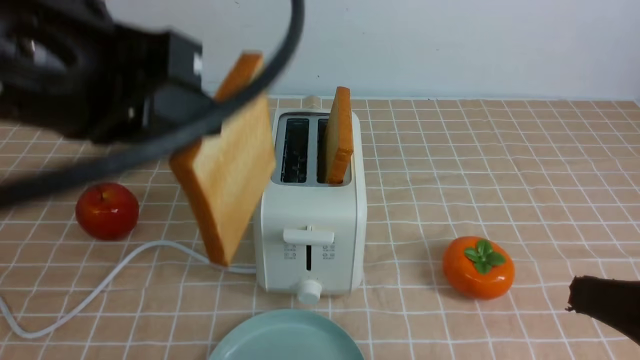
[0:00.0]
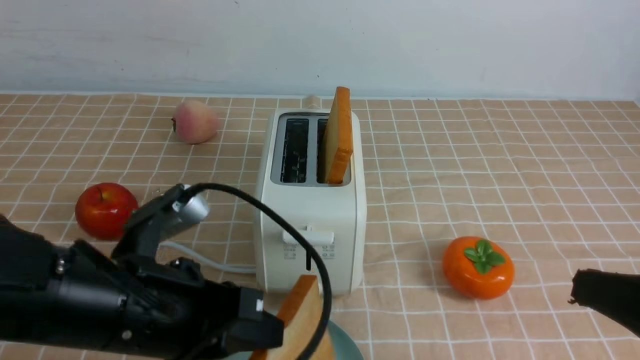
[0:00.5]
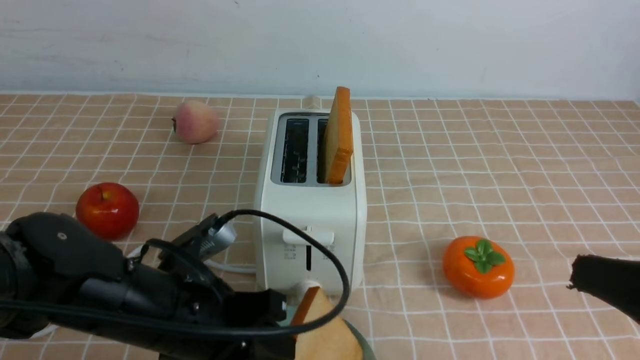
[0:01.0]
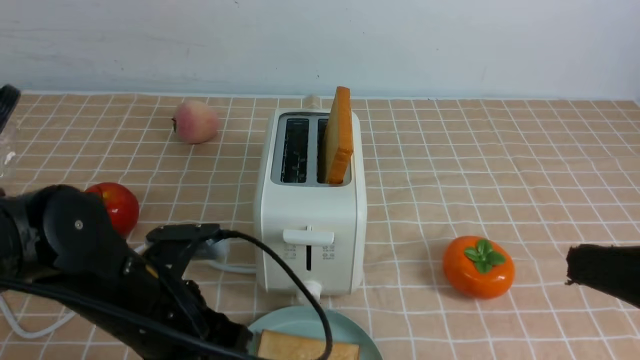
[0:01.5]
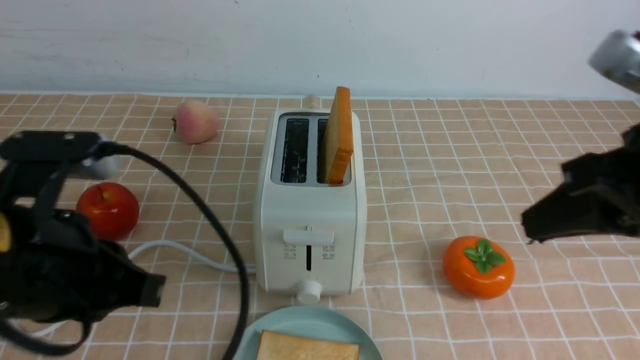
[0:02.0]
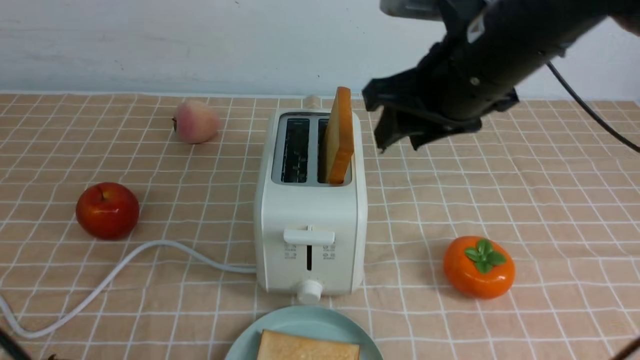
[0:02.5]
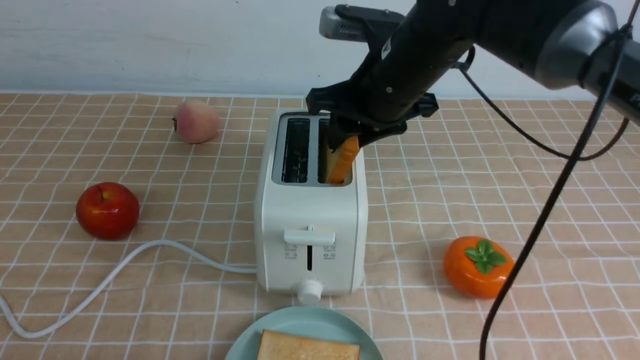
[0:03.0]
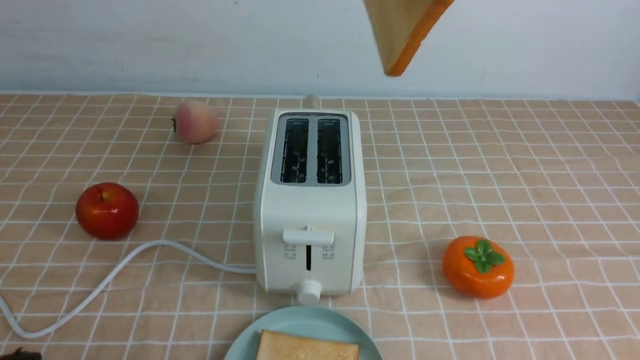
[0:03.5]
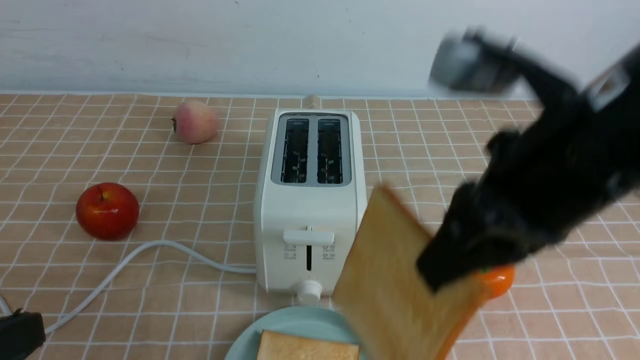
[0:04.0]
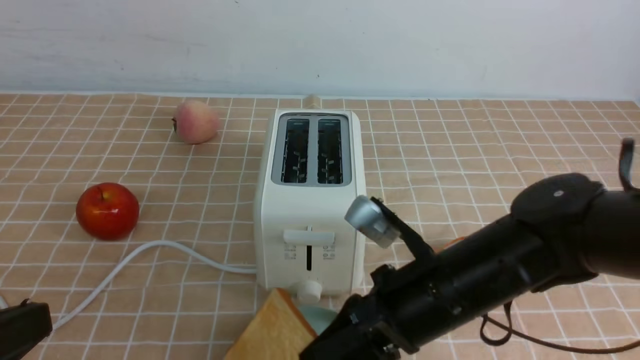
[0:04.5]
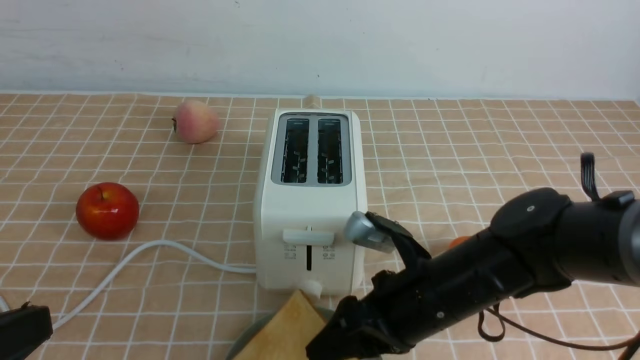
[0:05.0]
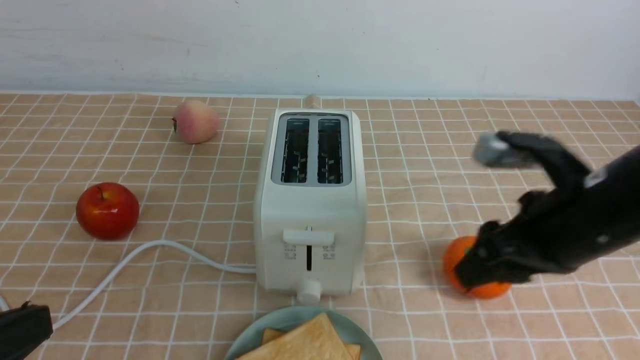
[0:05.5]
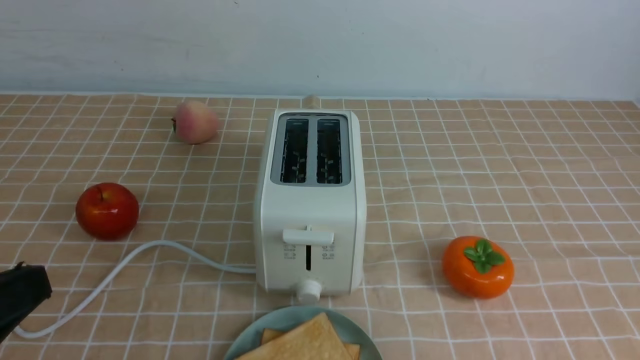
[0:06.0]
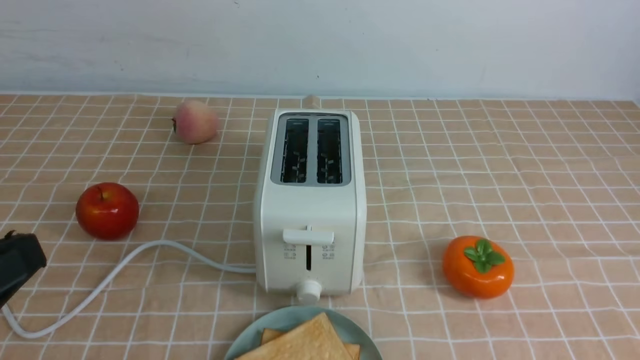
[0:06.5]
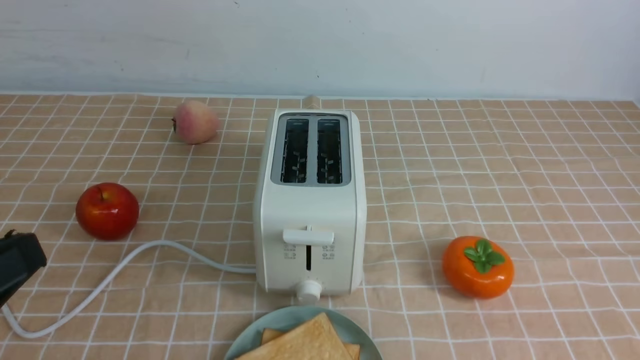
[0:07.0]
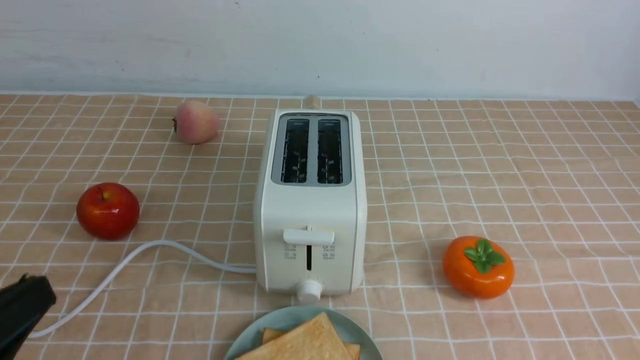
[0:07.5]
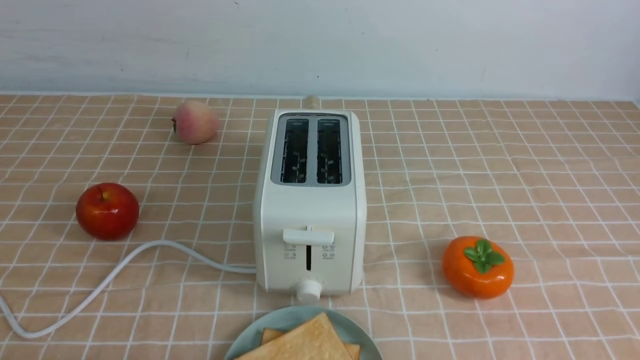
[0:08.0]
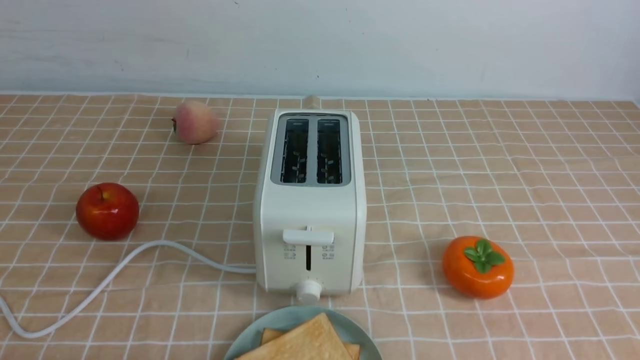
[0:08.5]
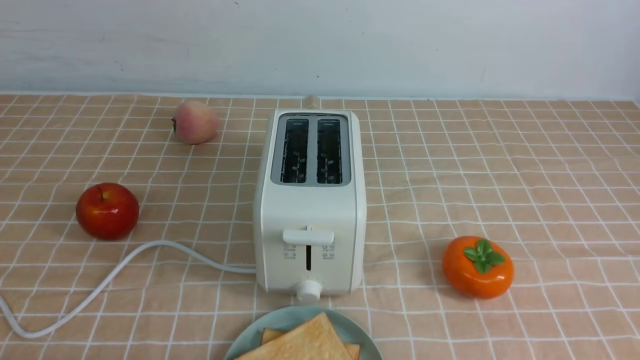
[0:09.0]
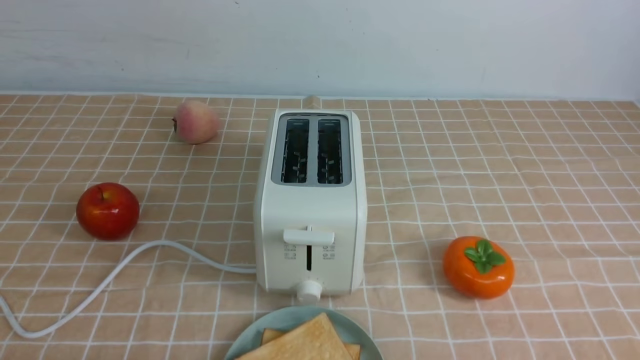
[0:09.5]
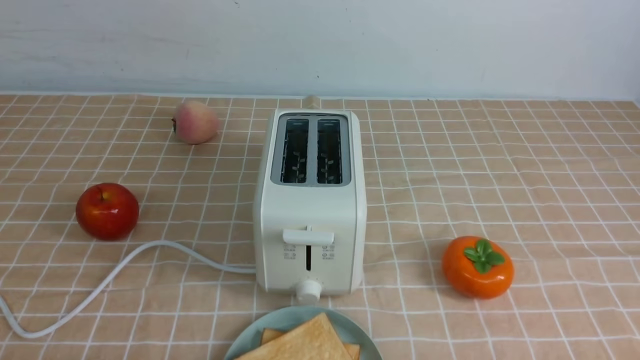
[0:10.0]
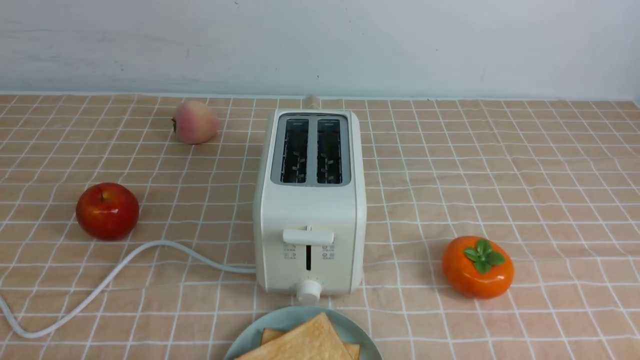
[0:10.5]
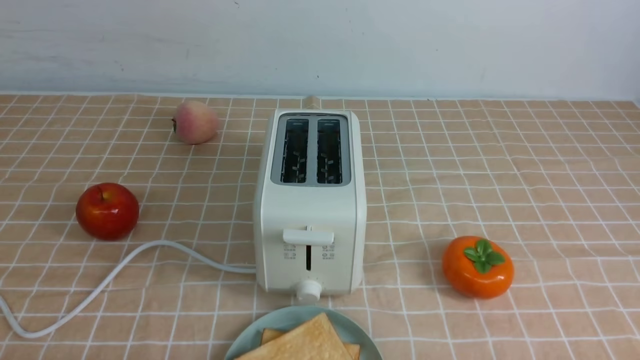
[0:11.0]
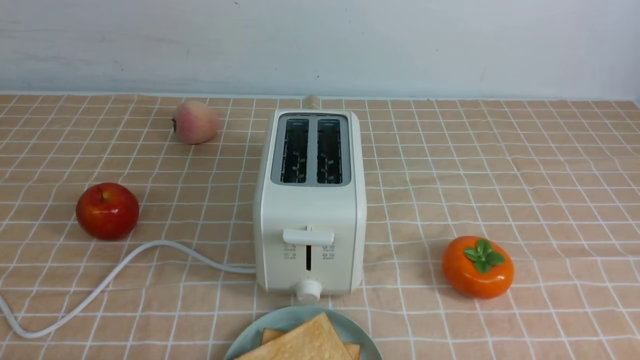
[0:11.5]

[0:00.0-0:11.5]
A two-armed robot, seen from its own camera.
Task of the whole recording: take toasted bread from bread machine on light coffee tablecloth place on plate.
Step, 0:00.0 to 0:01.5: use the left arm to put a slice of bread into the empty plate.
Step, 0:02.0 to 0:03.0: use the right arm to take out a slice of bread.
Step, 0:03.5 to 0:05.5: use the right arm to put a slice of bread into the plate.
0:00.0 to 0:02.0: The right gripper moves forward and upward, approximately 10 cm. The left gripper is displaced downward by approximately 15 cm, and opens, then closes again.
0:02.0 to 0:04.0: The left gripper moves backward and to the left, roughly 15 cm, while the right gripper moves to the left, some 10 cm, moves about 20 cm forward and comes back, and opens, then closes again.
0:04.0 to 0:06.0: The right gripper goes about 20 cm to the right and backward, moves about 25 cm downward and comes back, and opens and closes again.
0:06.0 to 0:07.5: The right gripper is displaced downward and backward by some 10 cm.
0:07.5 to 0:09.5: The left gripper shifts approximately 10 cm downward.

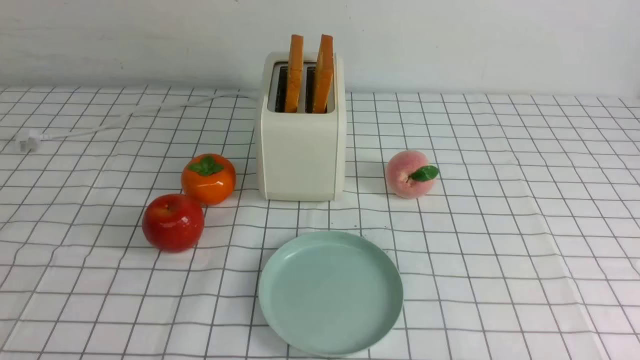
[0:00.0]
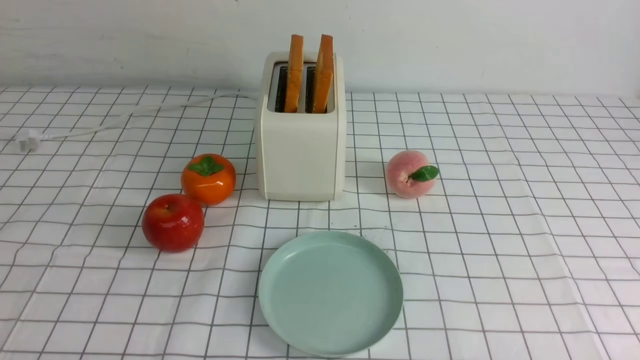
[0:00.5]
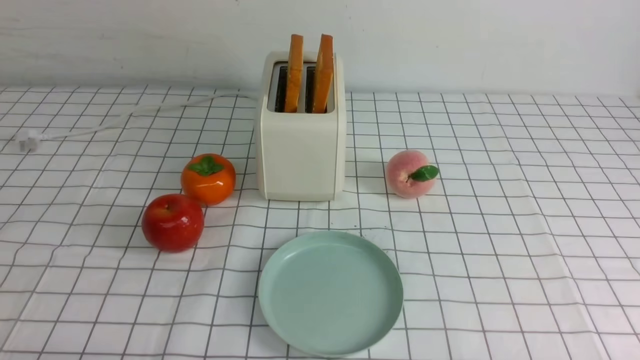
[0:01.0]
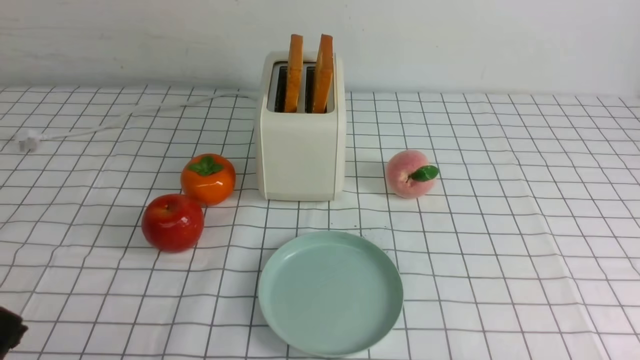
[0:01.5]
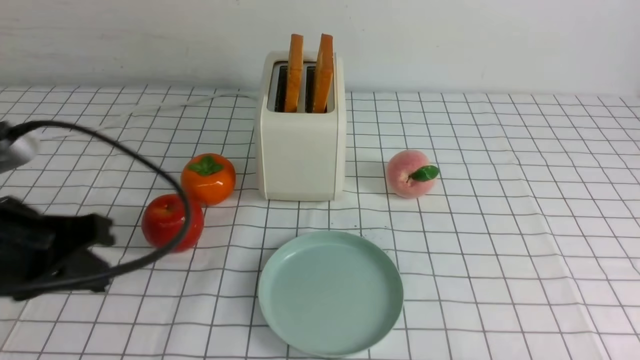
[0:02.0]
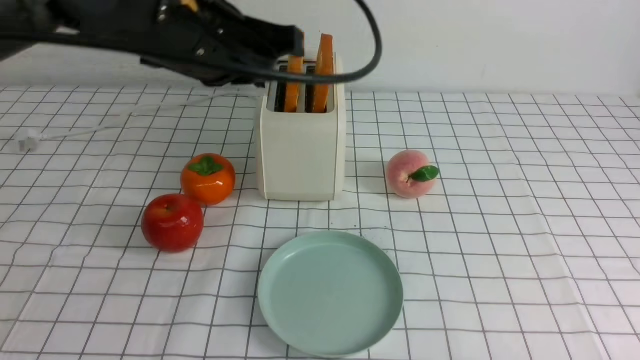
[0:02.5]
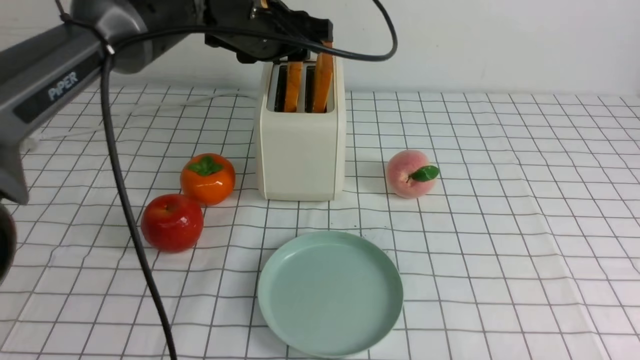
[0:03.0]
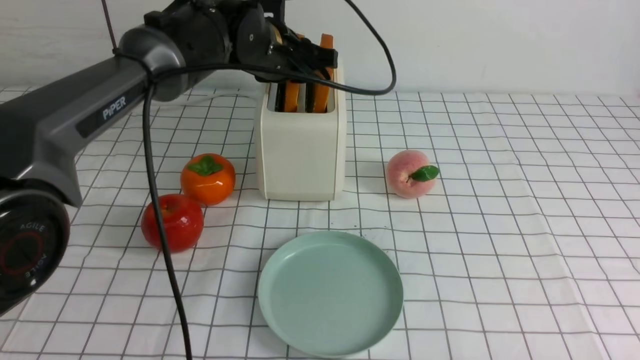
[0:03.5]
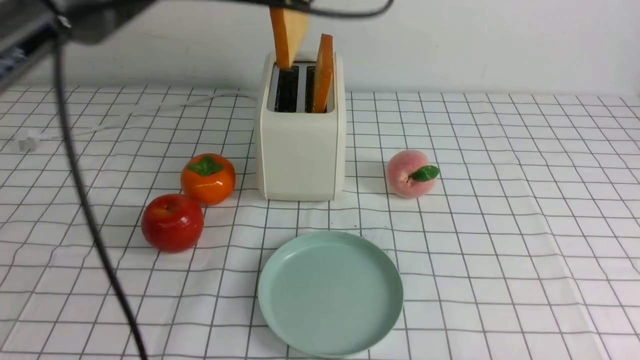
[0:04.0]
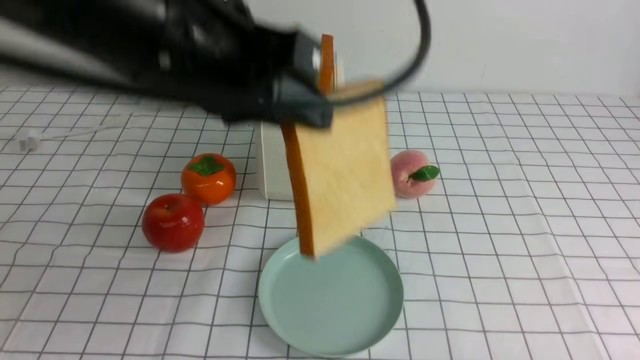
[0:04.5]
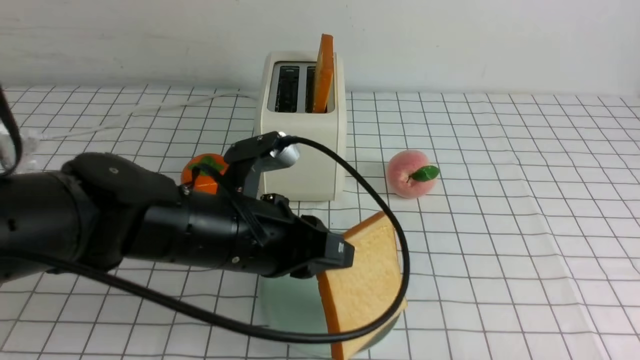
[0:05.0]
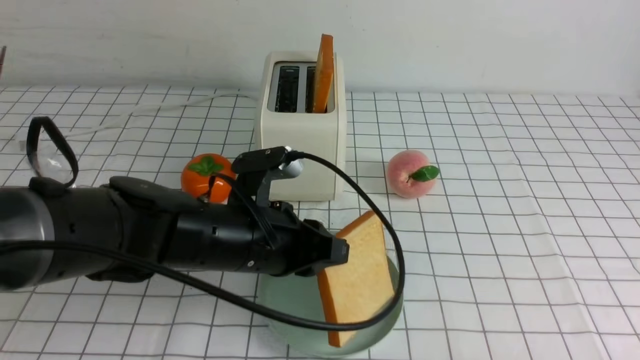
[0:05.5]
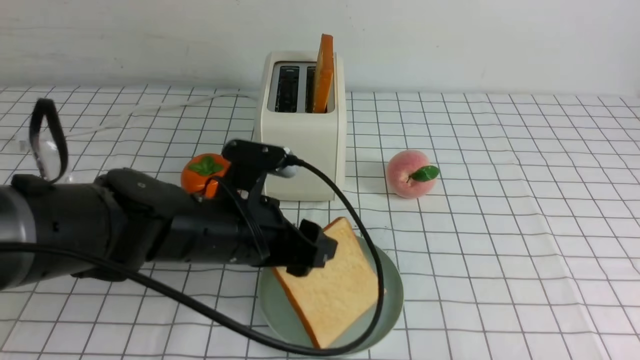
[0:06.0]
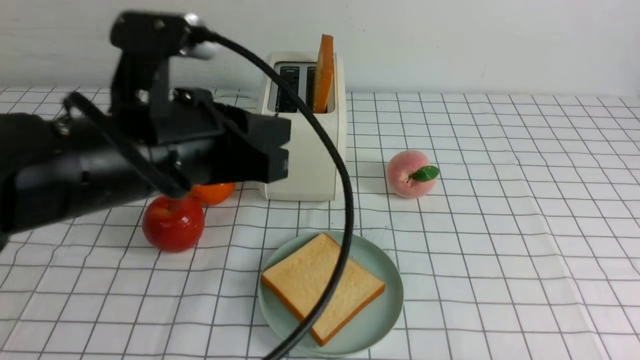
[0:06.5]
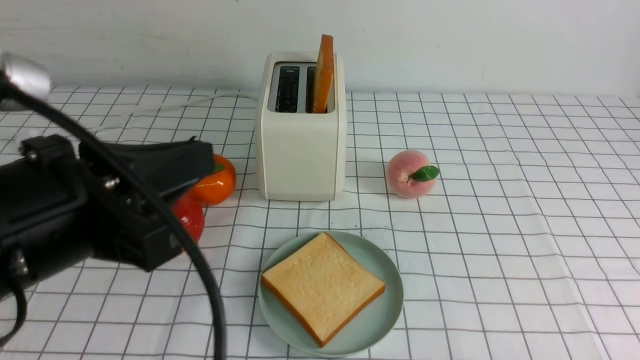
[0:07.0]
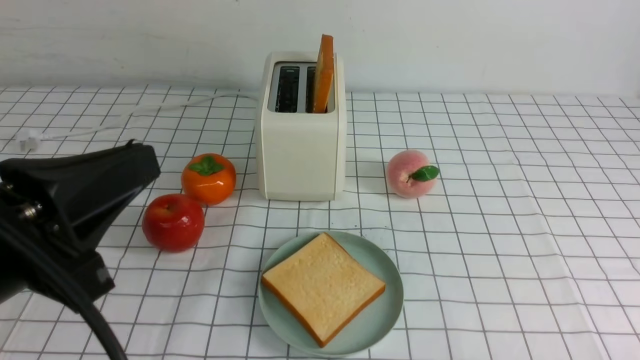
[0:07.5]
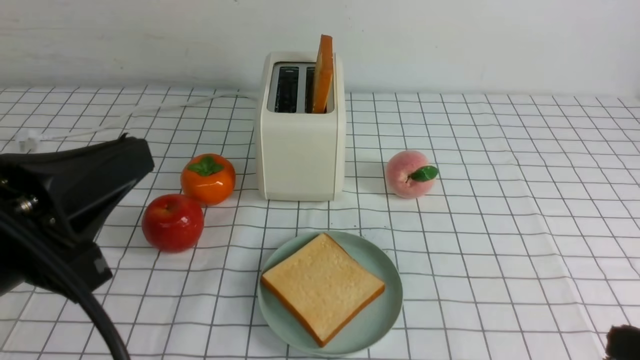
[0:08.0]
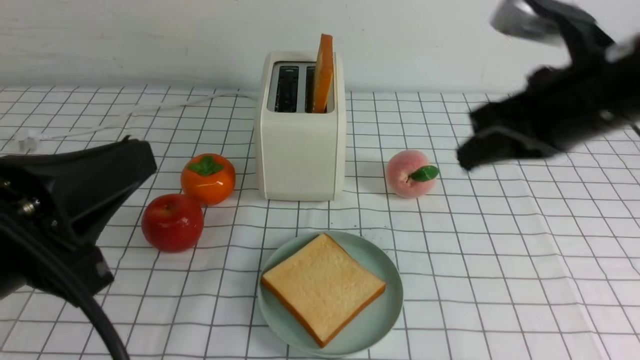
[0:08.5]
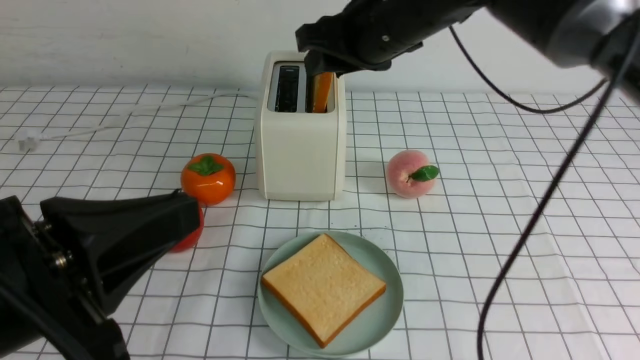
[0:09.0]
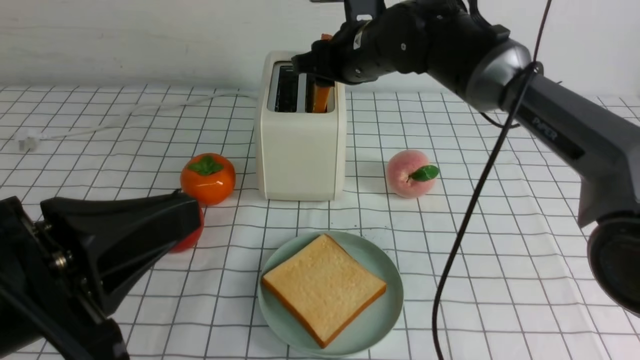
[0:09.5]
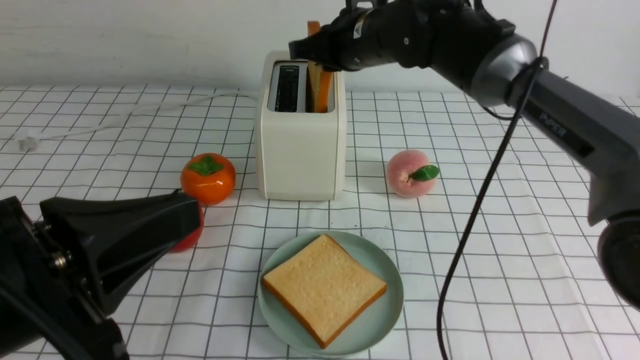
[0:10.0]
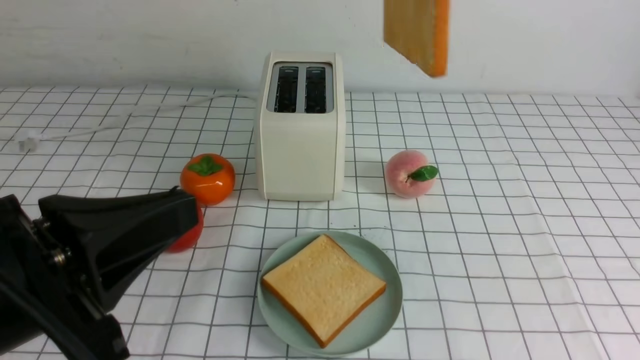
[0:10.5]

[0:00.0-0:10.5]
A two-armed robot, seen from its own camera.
Task of the whole recording: take toasted bread from bread machine on white checkered table place on plate.
Step, 0:00.0 to 0:03.5: use the left arm to take out a slice of bread.
Step, 0:04.0 to 0:06.0: use the left arm to put a slice of bread into the empty plate.
Step, 0:06.5 to 0:10.0: use the right arm to take out a slice of bread.
0:02.0 to 0:04.0: The left gripper moves forward and to the right, about 30 cm, and opens and closes again.
0:04.0 to 0:06.5: The left gripper heads backward, covering approximately 20 cm, and opens, then closes once more.
0:06.5 to 0:08.5: The left gripper shifts roughly 15 cm backward and to the left, and closes its fingers, while the right gripper moves forward, upward and to the left, approximately 30 cm, and closes its fingers.
0:08.5 to 0:10.5: The right gripper goes about 20 cm upward, forward and to the left, and opens, then closes once more.
